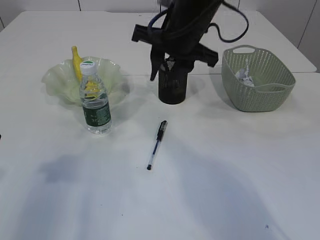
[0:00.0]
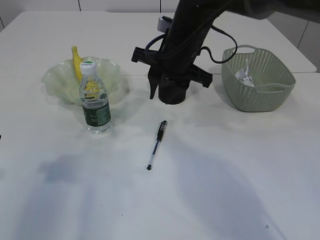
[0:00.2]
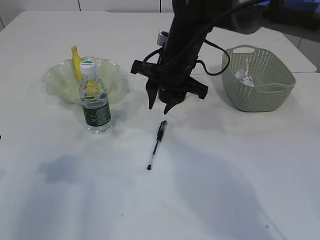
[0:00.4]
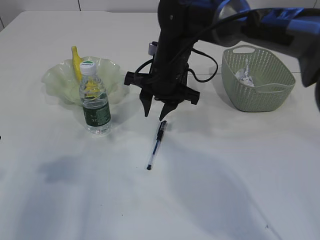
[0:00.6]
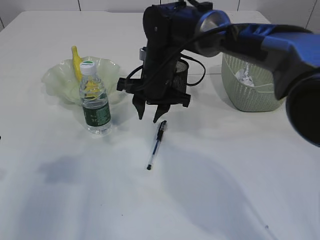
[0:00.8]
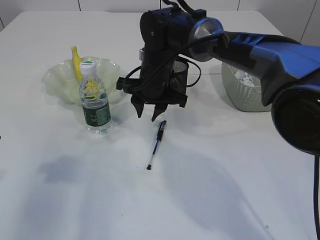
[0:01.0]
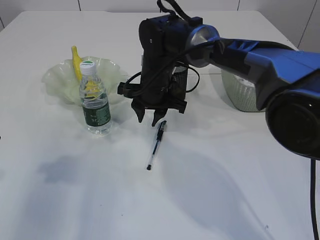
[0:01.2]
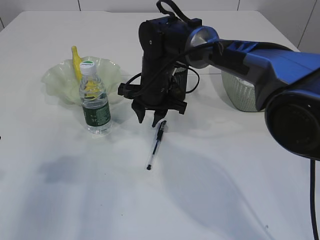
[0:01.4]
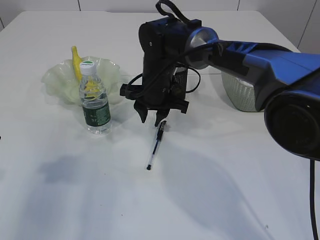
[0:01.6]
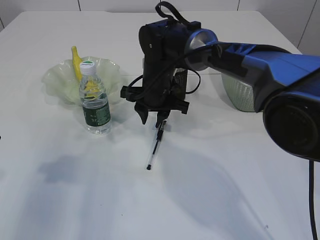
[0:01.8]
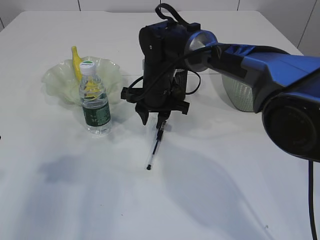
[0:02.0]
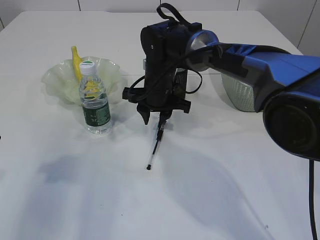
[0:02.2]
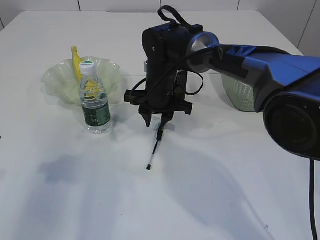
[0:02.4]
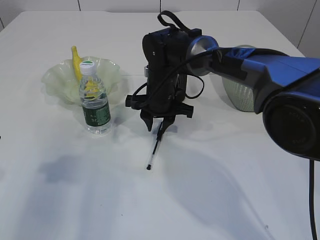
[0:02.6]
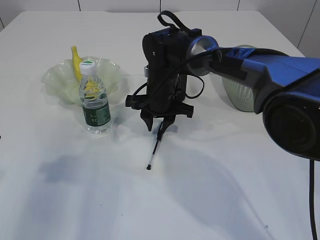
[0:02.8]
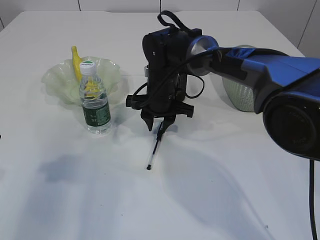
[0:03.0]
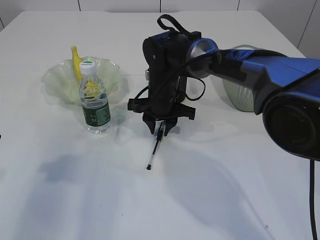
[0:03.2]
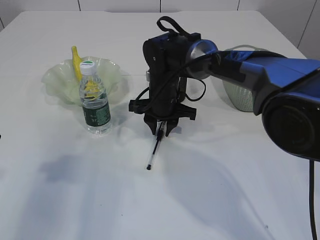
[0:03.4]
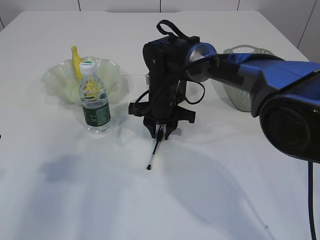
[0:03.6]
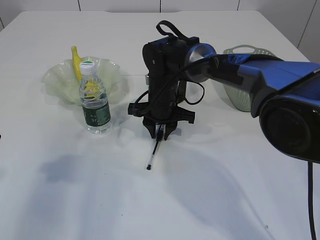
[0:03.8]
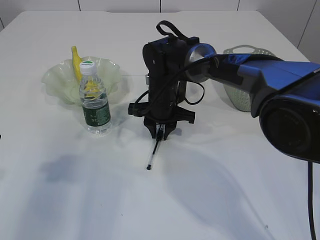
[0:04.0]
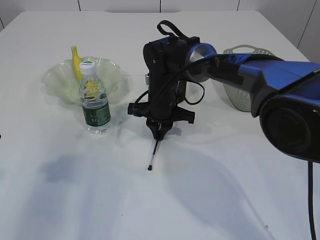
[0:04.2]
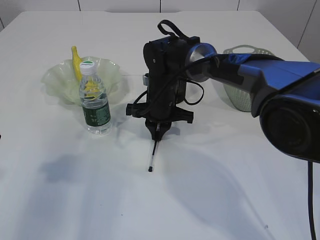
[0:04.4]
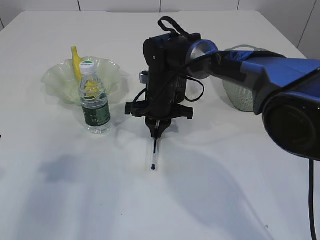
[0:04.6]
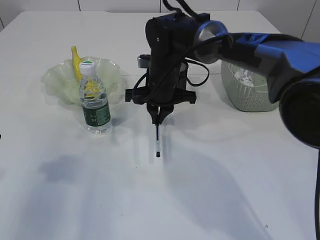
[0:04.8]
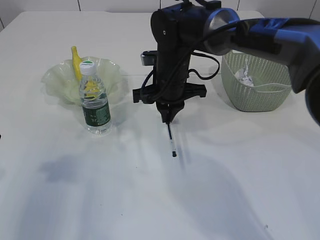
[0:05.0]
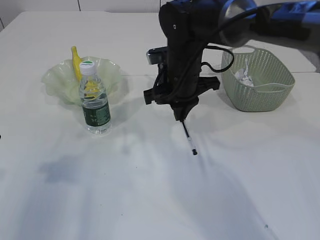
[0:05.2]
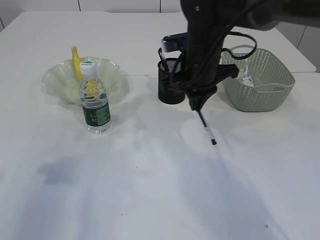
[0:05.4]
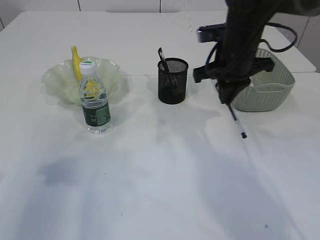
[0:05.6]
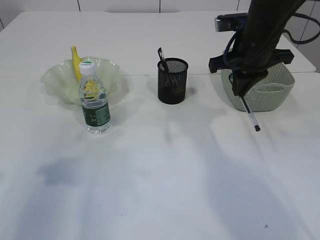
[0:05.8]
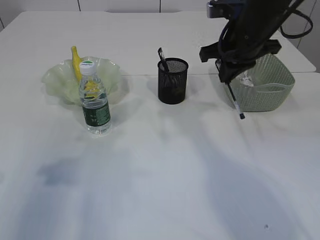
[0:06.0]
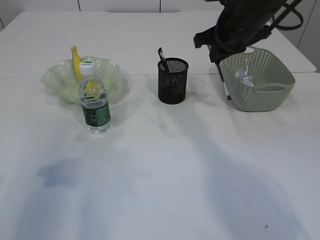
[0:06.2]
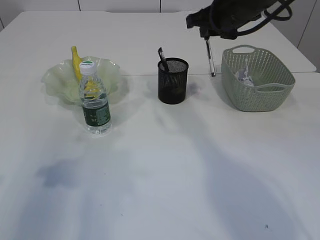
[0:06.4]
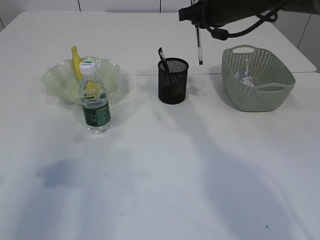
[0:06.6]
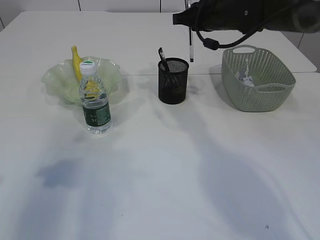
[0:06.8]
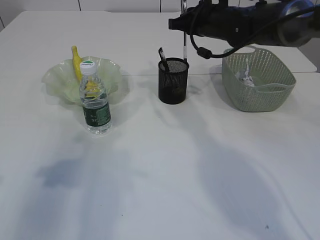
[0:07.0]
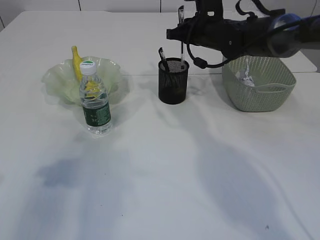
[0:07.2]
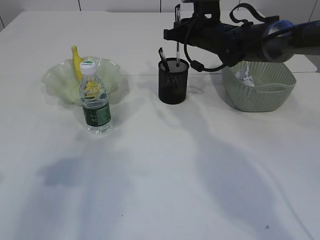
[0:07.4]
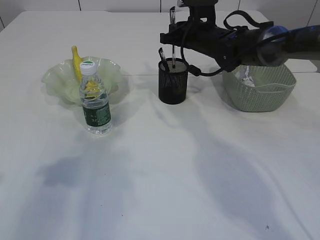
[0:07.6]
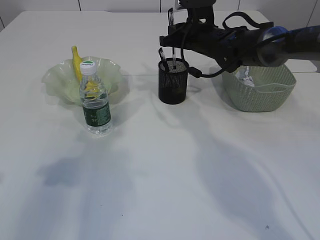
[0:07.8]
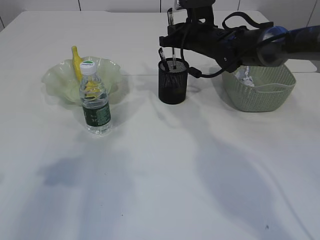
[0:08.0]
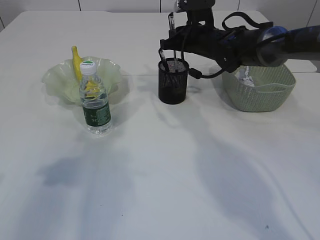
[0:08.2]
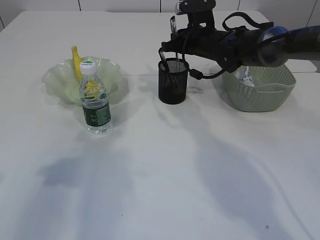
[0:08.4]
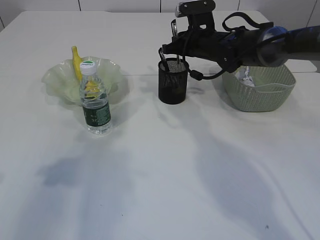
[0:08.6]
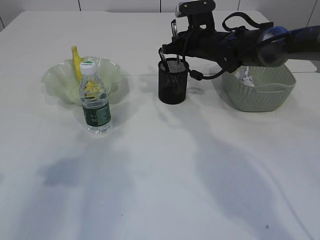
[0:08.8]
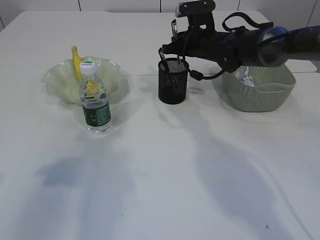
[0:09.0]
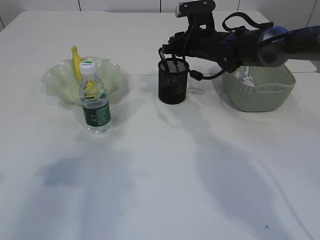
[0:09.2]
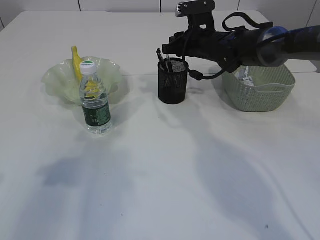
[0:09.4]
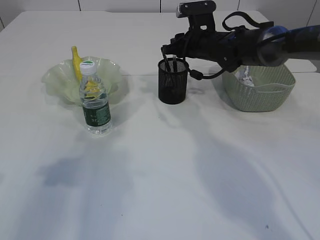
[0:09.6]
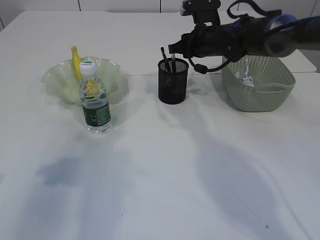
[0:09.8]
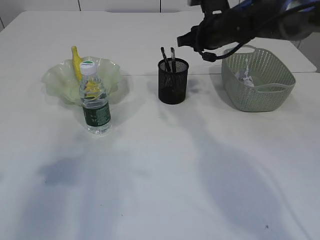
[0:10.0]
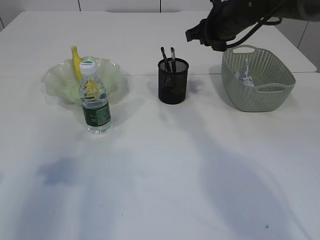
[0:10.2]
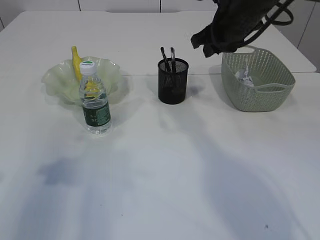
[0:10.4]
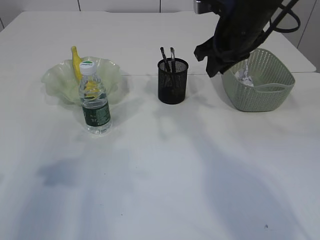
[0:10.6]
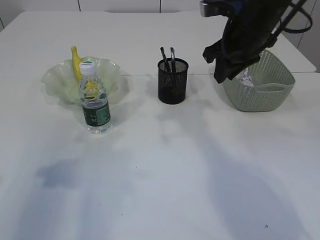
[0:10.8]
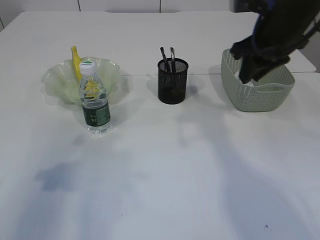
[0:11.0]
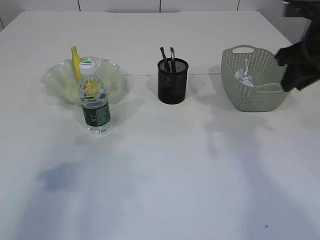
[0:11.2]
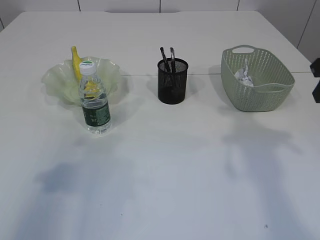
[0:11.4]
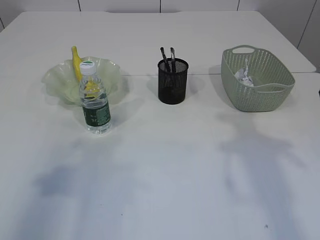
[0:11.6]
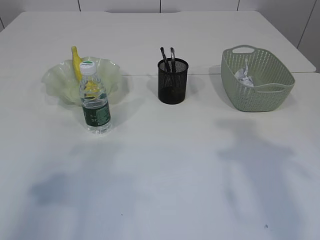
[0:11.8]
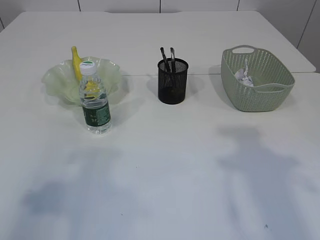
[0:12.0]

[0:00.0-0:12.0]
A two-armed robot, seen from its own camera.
Step, 0:00.0 to 0:05.2: Pick up the pen with right arm.
Step, 0:05.4 to 0:10.2: Place the pen into the pen holder.
0:00.0 to 0:01.6: The right gripper is displaced downward by roughly 15 cm.
0:01.6 to 0:03.0: The grippers make only small movements.
0:03.0 to 0:04.4: The right gripper closes up.
0:04.4 to 0:06.0: The right gripper travels upward and to the right by about 20 cm.
0:06.0 to 0:07.6: The right gripper heads forward and downward, covering about 15 cm.
0:07.6 to 0:09.0: The grippers move only a little.
0:09.0 to 0:10.4: The right gripper travels upward and backward by some 10 cm.
0:10.4 to 0:12.0: The left gripper shifts approximately 10 cm backward and upward, while the right gripper moves backward and to the right, roughly 25 cm.

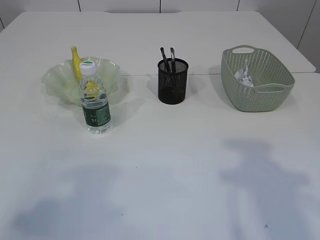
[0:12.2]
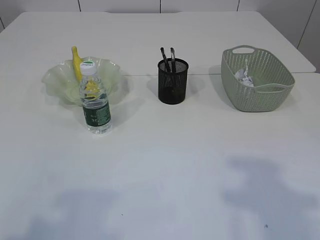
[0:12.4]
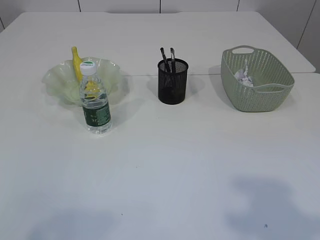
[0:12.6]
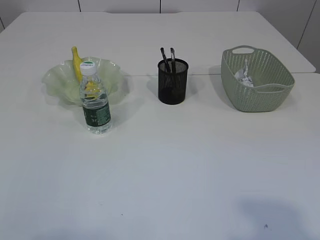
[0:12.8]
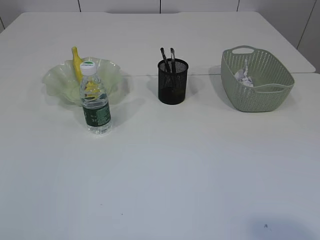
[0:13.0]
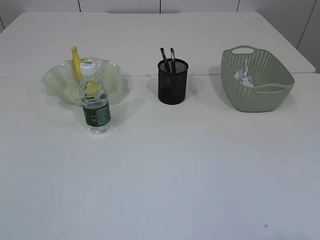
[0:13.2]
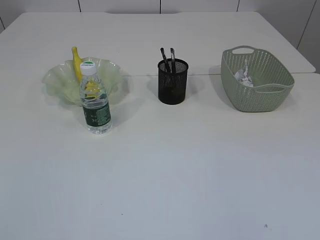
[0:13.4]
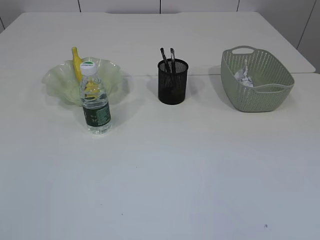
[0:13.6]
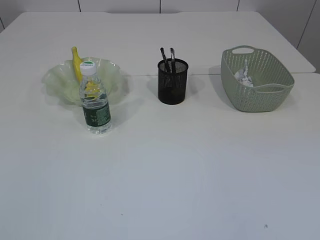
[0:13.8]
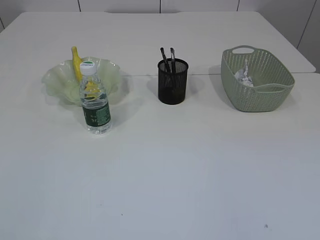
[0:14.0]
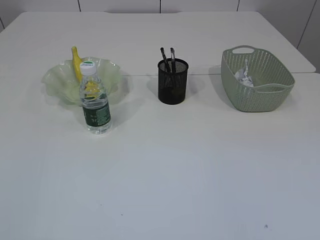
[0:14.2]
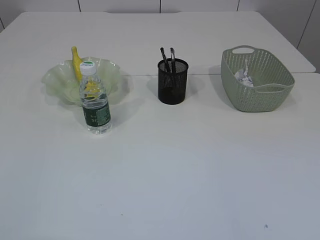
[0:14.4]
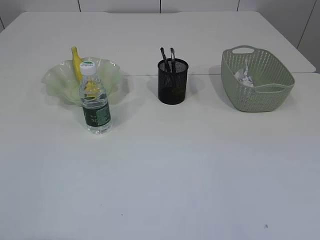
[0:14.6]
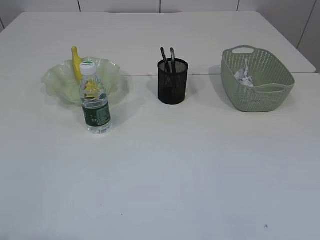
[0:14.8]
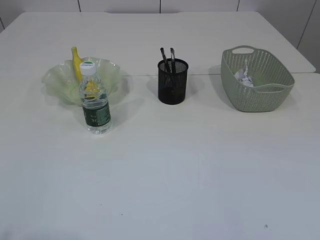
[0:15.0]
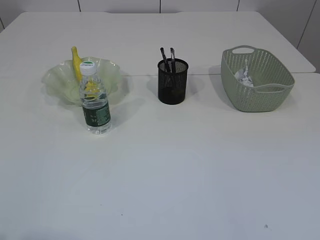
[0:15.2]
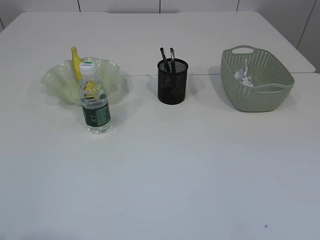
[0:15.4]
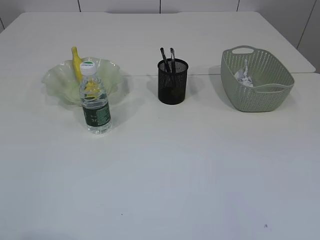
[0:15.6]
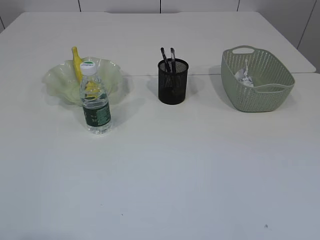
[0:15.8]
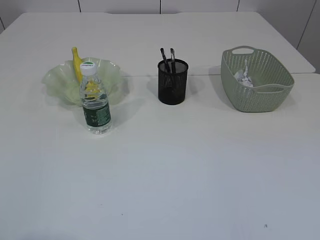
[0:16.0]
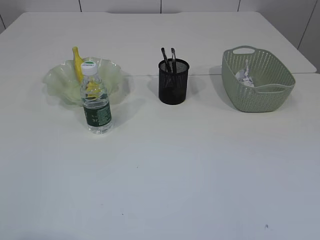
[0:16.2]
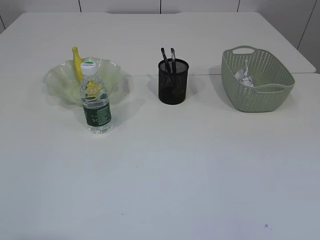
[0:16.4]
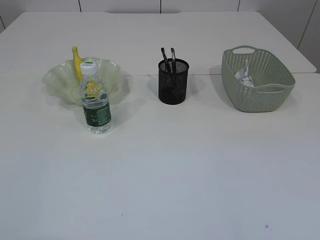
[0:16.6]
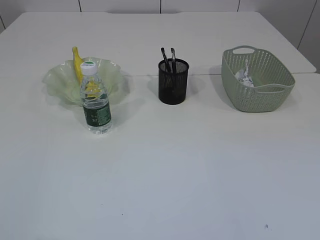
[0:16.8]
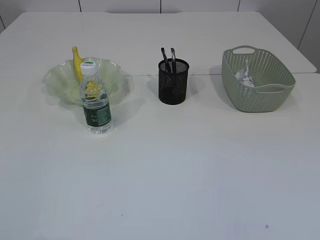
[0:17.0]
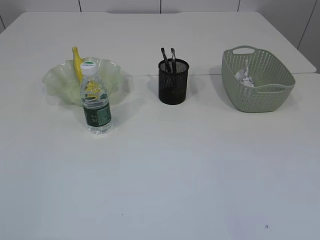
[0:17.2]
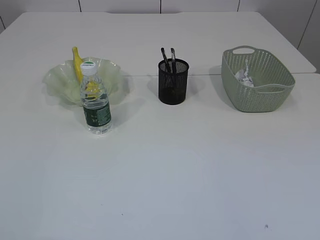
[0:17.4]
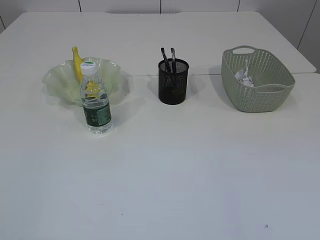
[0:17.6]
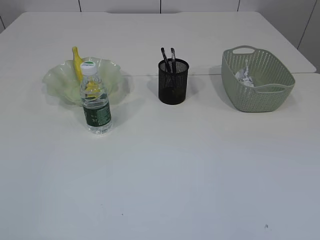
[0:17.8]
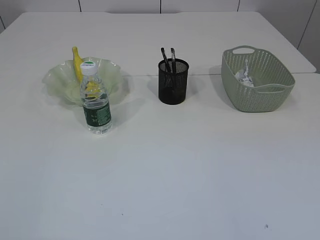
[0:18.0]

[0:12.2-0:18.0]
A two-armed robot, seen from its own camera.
0:12.2 to 0:13.6: The left gripper goes some 15 cm backward.
0:16.6 to 0:18.0: Both grippers stay put.

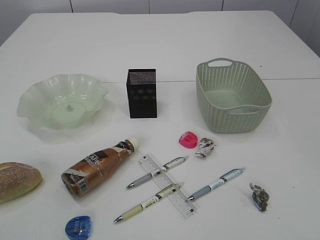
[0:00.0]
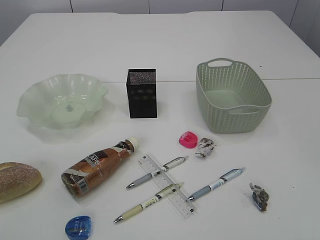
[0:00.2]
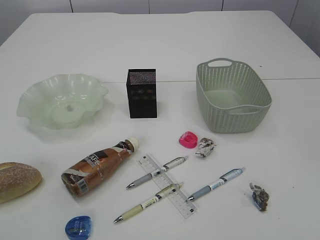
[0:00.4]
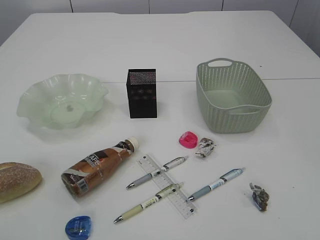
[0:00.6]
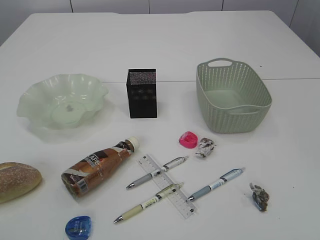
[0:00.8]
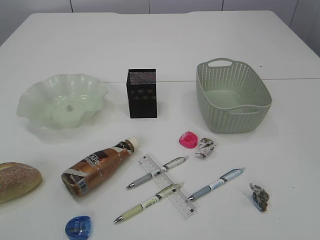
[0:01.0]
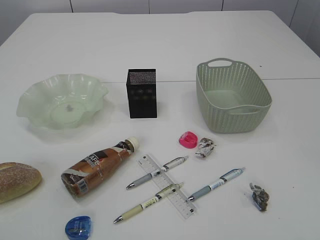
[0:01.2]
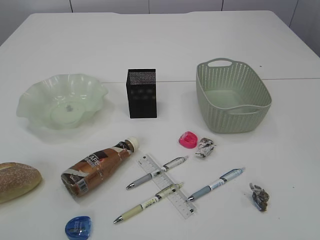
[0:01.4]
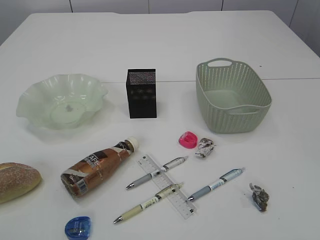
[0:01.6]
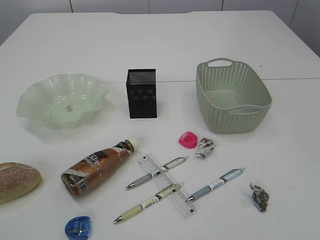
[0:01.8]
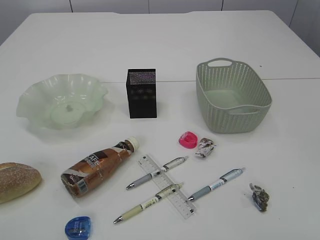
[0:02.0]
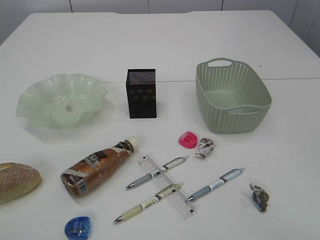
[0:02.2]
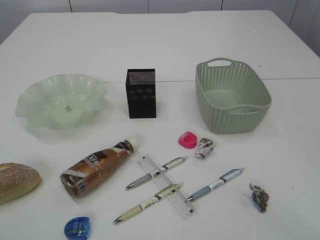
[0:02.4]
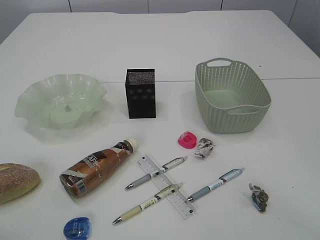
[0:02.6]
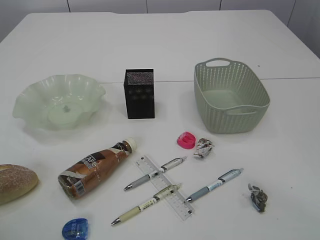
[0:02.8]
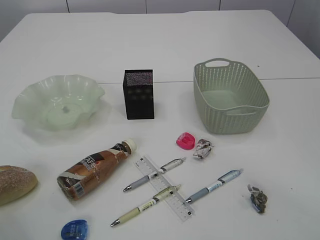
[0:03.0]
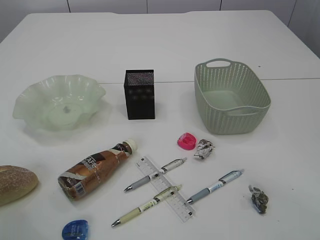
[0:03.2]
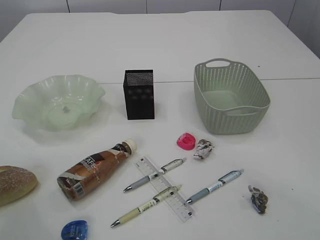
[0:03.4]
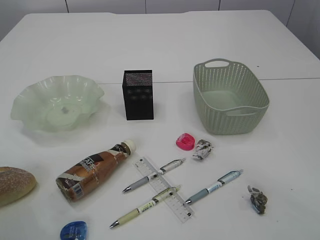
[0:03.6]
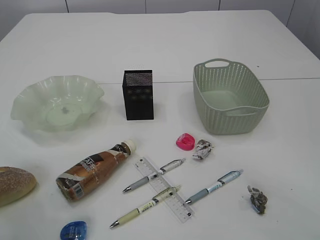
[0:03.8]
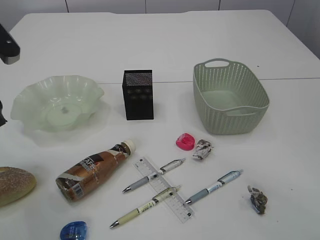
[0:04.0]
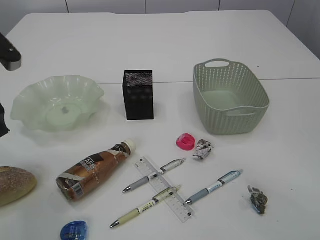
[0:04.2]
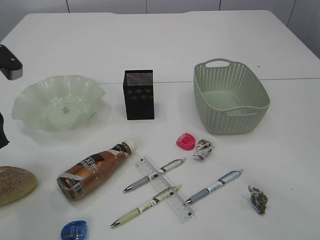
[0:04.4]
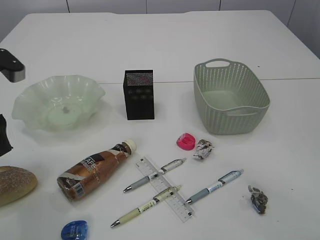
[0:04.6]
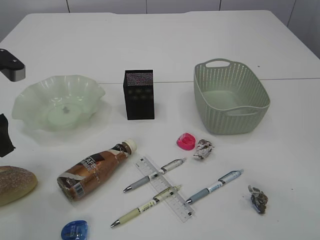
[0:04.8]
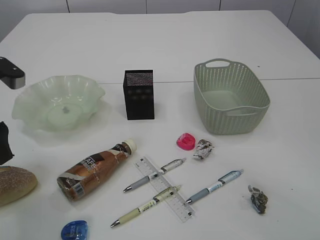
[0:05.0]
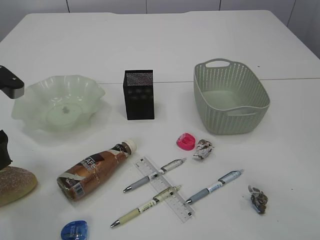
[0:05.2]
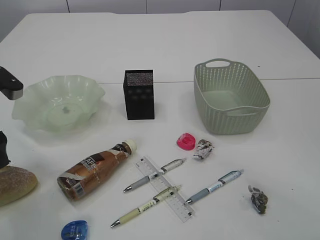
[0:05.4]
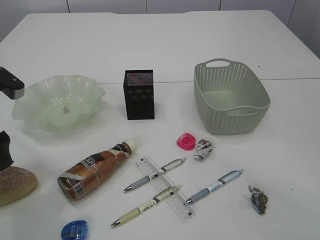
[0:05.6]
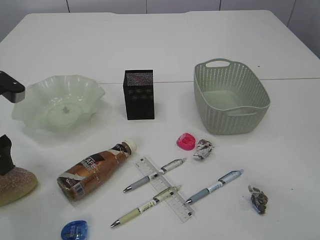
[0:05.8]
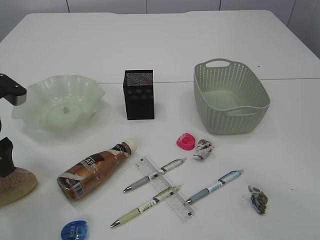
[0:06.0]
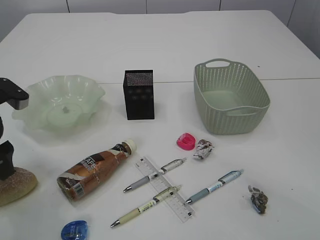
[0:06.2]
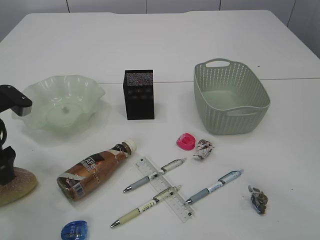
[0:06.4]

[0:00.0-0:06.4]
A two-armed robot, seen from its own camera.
0:01.6 to 0:03.2: Both grippers move forward, about 20 cm. The left gripper opens up.
0:03.2 to 0:04.8: The left gripper moves forward and downward, about 10 cm.
0:04.8 to 0:06.4: The left gripper shifts some 5 cm downward.
